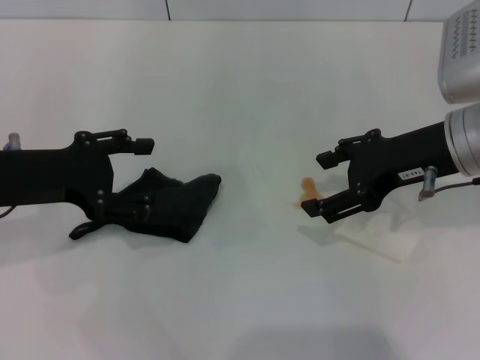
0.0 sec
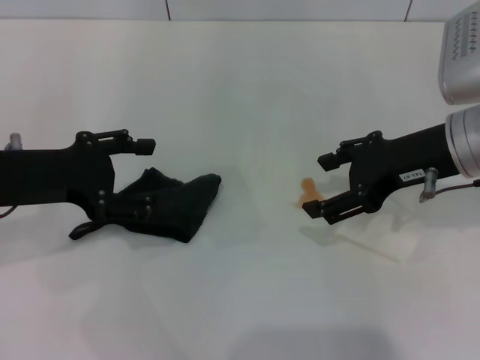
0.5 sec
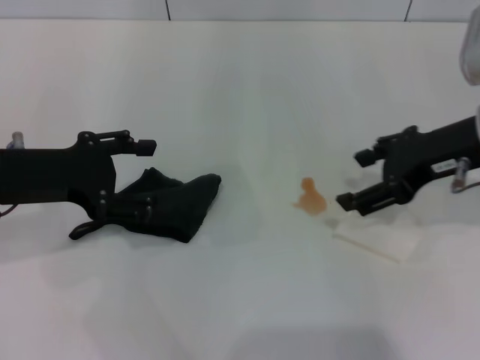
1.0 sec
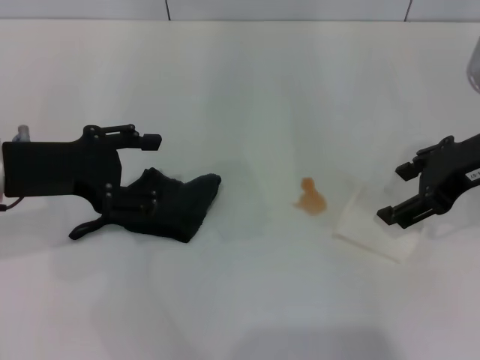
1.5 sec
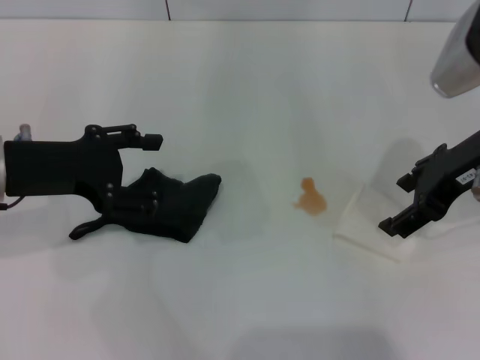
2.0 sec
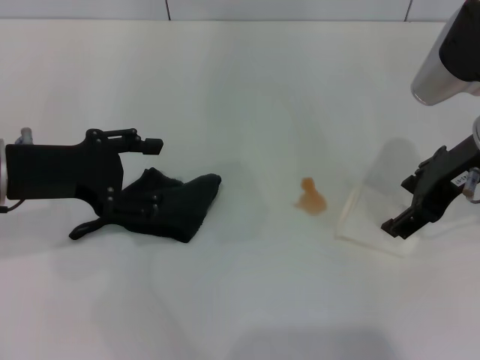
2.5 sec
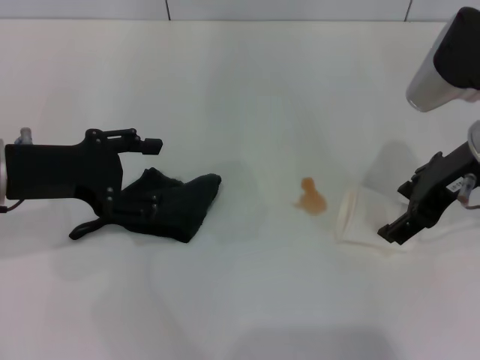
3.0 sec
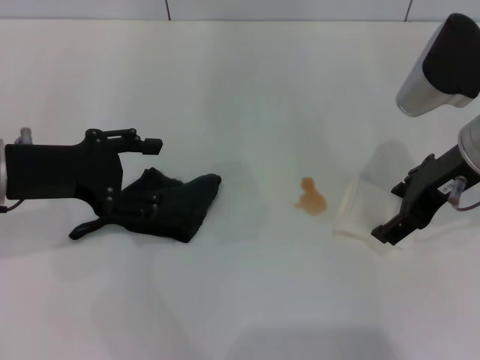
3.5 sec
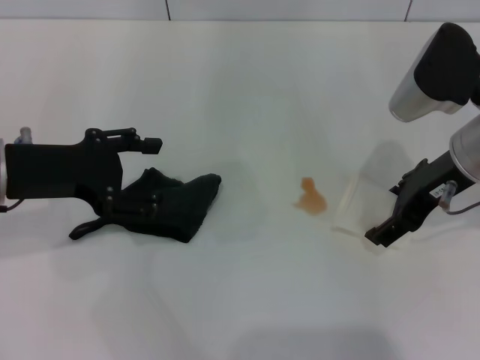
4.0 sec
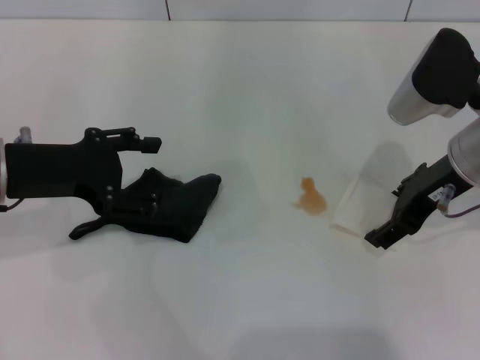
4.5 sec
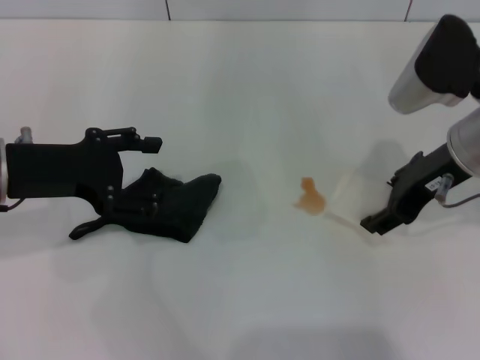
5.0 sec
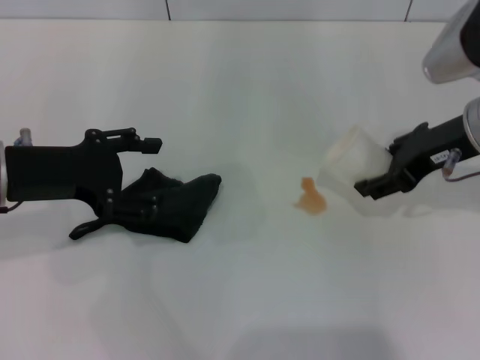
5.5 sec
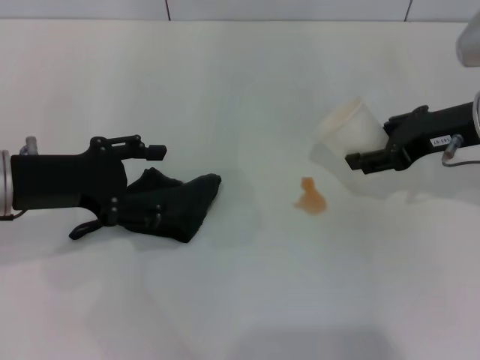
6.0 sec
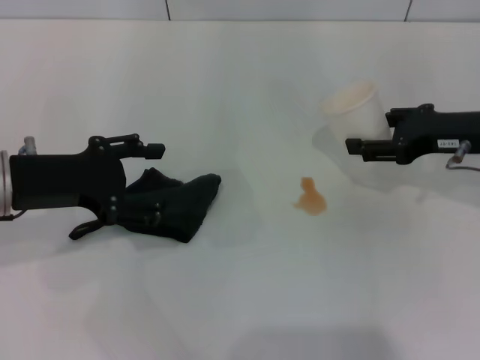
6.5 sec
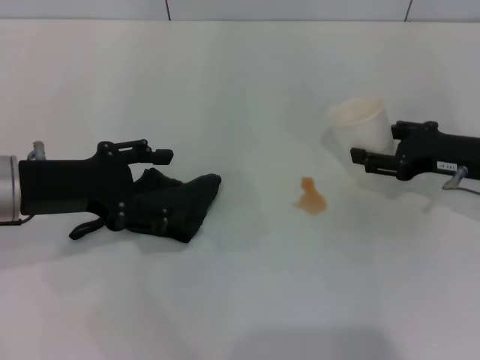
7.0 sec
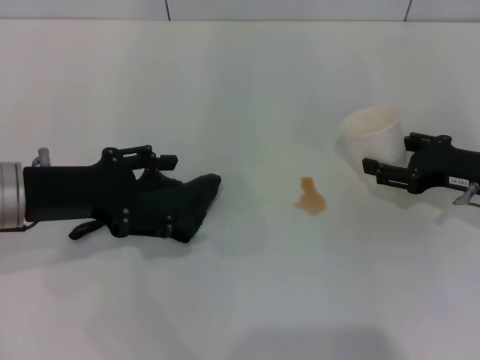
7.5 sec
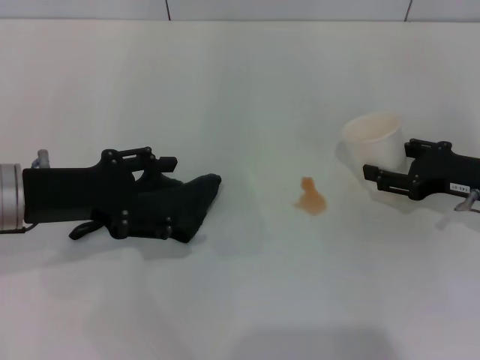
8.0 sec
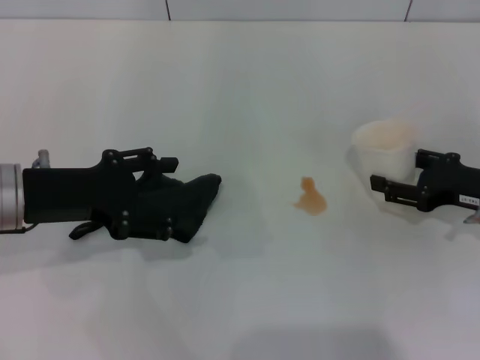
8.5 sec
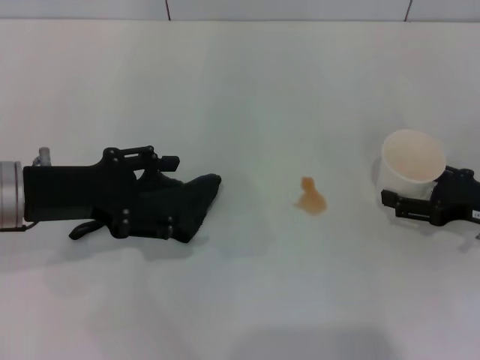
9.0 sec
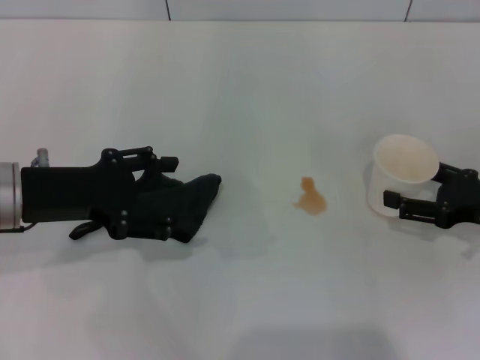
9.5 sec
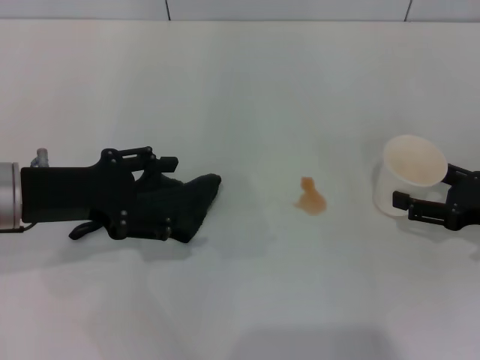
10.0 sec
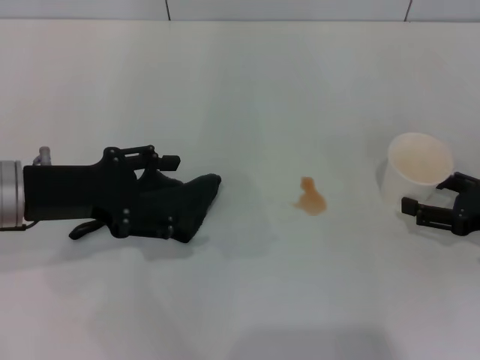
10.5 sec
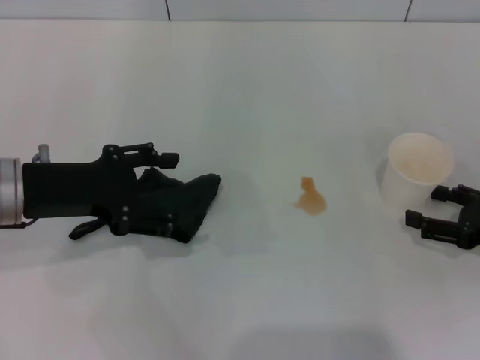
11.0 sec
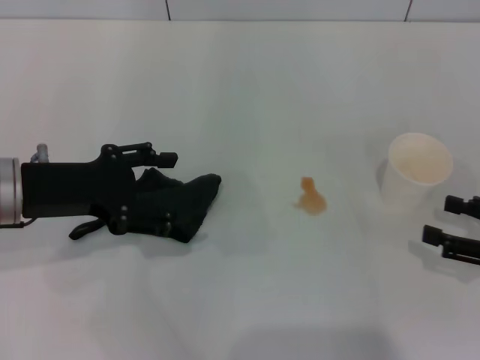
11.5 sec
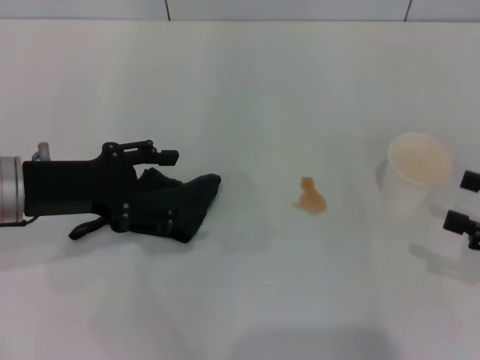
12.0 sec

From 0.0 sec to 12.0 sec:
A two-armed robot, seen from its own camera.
Step, from 0.0 sec to 4.5 sec: Grasp the paper cup with the right gripper.
Step, from 5.0 sec to 10.5 sec: Stand the paper cup upright with the right gripper.
From 2.0 sec to 4.0 sec: The grippers stay close to where they were, moving slightly.
From 4.0 sec to 6.0 sec: The right gripper closes its fingers.
From 6.0 sec to 8.0 sec: The right gripper shifts some 10 cm downward and to the right.
From 8.0 sec to 10.0 sec: The right gripper ends up approximately 5 cm from where it was, and opens.
From 10.0 sec to 12.0 sec: The right gripper moves backward, some 5 cm.

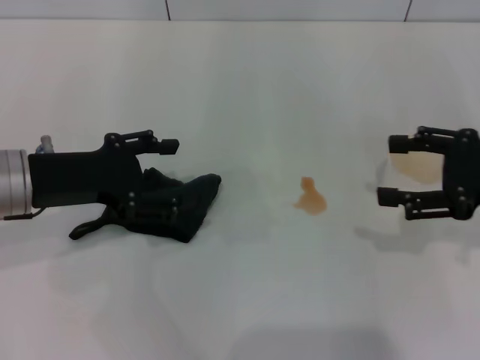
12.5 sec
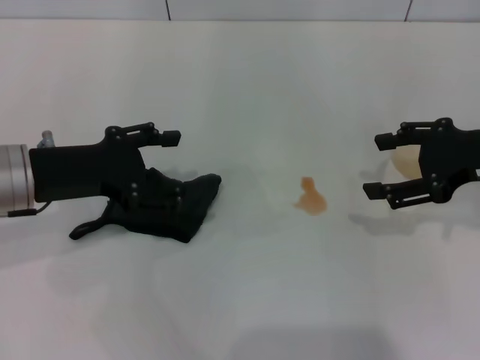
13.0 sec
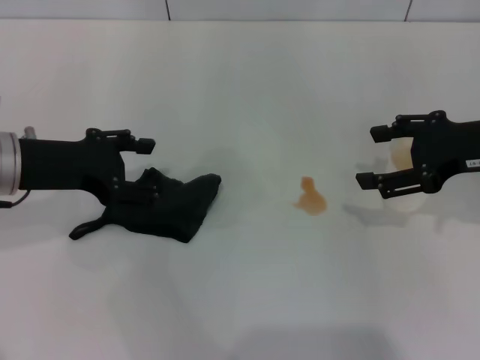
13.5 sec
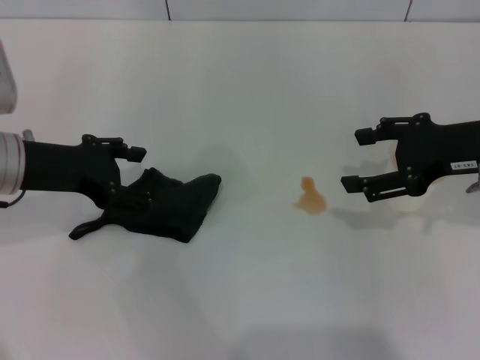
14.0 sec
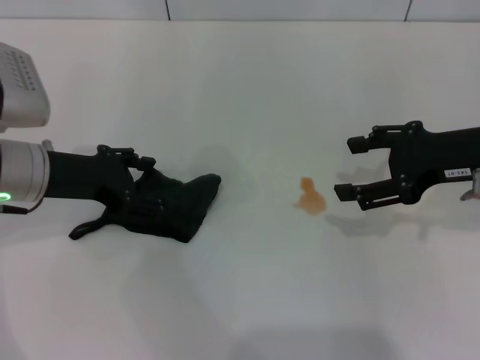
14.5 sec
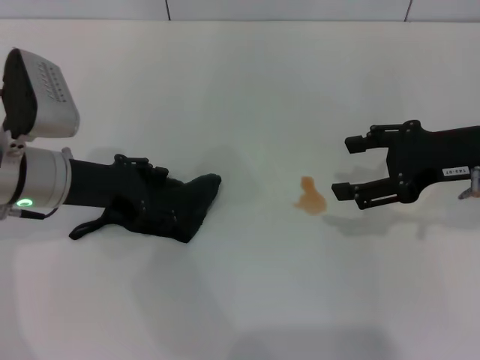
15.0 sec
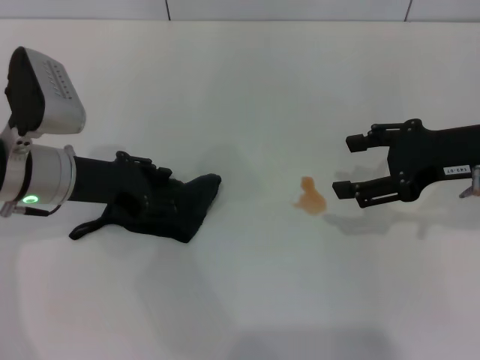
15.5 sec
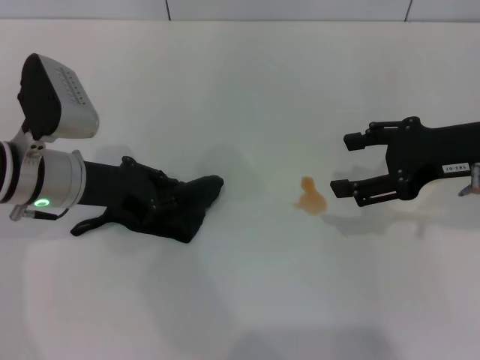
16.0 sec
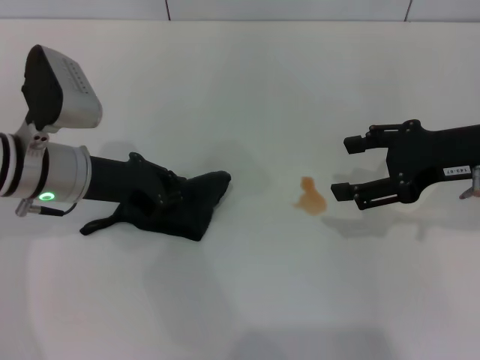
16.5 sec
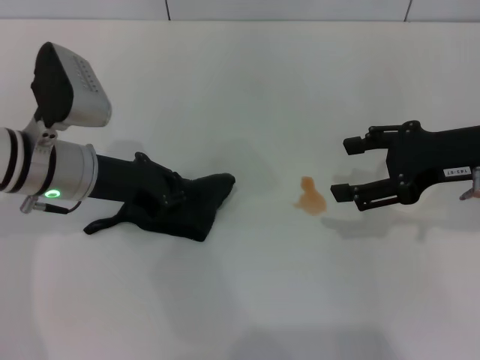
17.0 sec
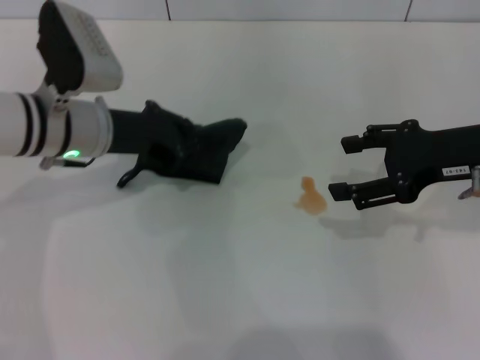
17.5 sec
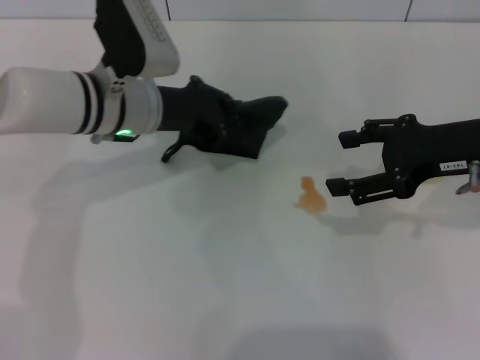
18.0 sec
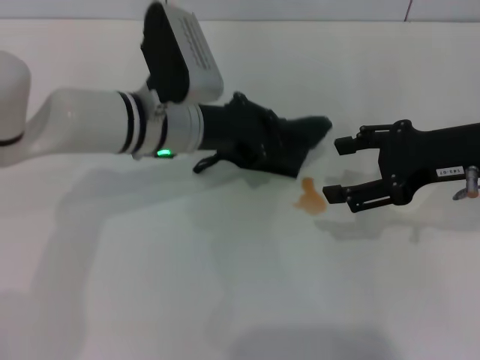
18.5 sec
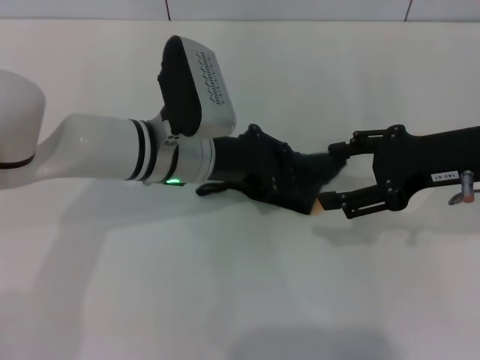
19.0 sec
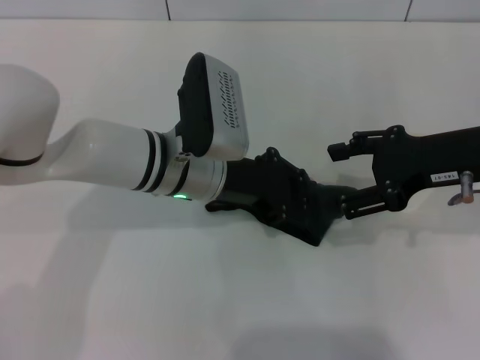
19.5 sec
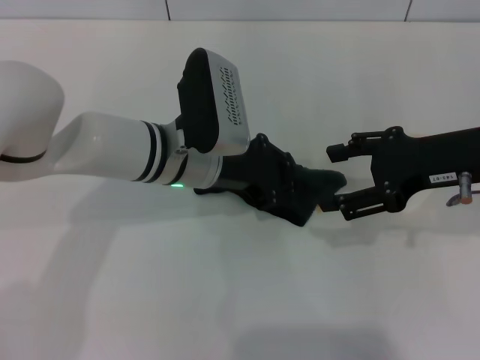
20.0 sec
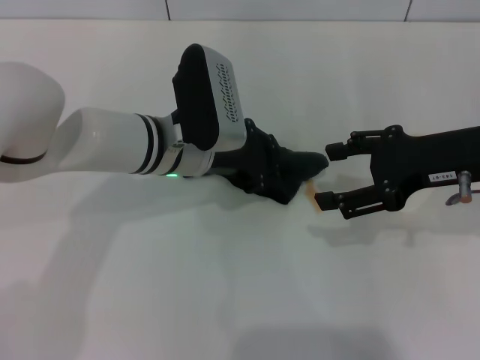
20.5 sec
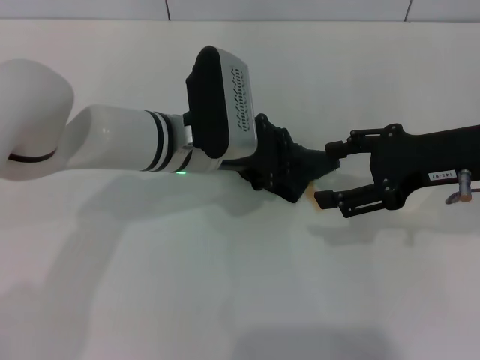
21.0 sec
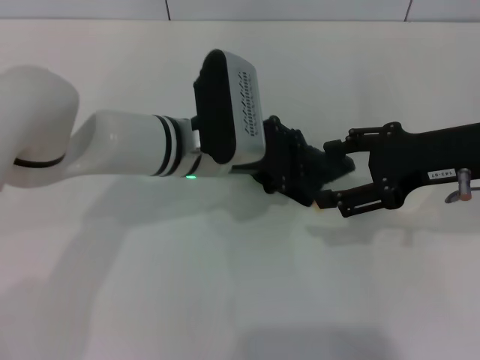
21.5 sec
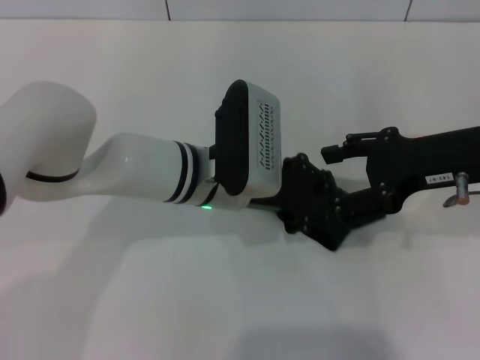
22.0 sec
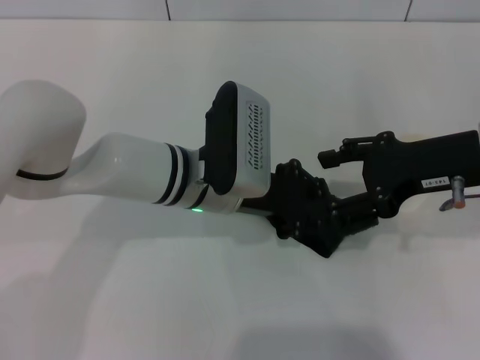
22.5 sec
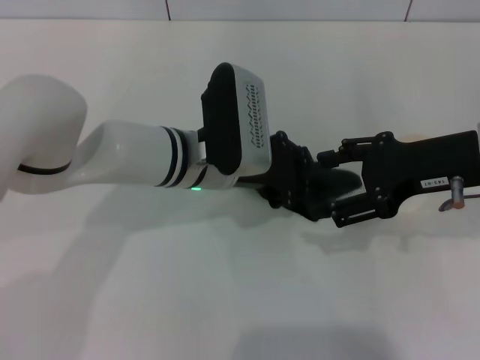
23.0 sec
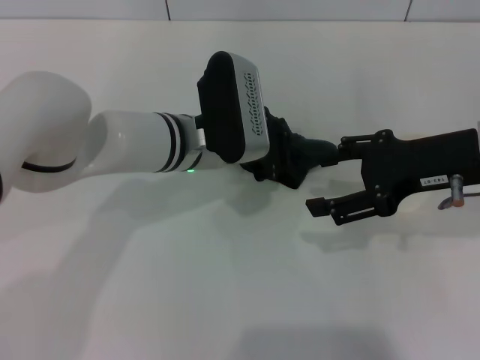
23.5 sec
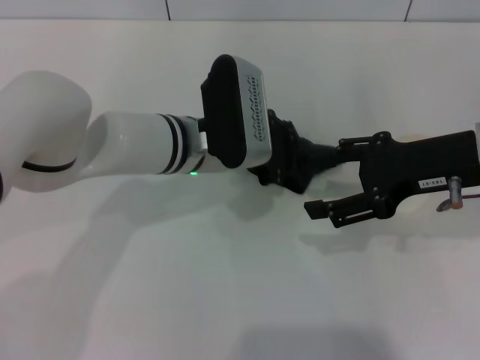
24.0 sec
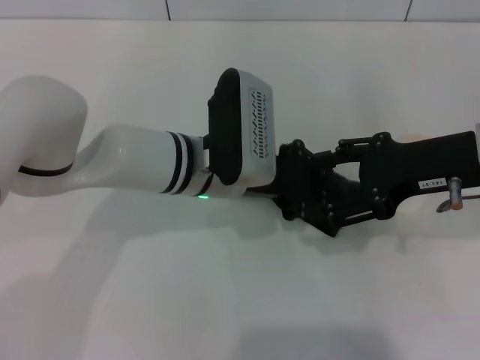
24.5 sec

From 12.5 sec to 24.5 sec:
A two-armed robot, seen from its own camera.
Step, from 12.5 sec to 17.0 sec: Grasp the rag with the left gripper.
From 12.5 sec to 14.5 sec: The right gripper moves approximately 5 cm.
From 14.5 sec to 16.5 sec: The left gripper closes its fingers.
From 16.5 sec to 18.5 sec: The left gripper travels to the right by approximately 10 cm.
From 18.5 sec to 20.5 sec: The grippers make only small movements.
From 20.5 sec to 24.5 sec: The grippers move only a little.

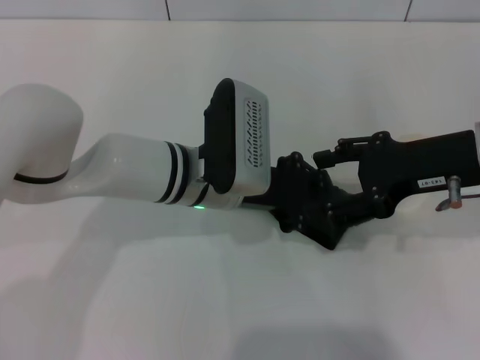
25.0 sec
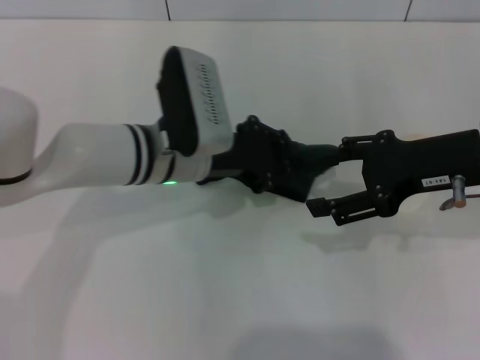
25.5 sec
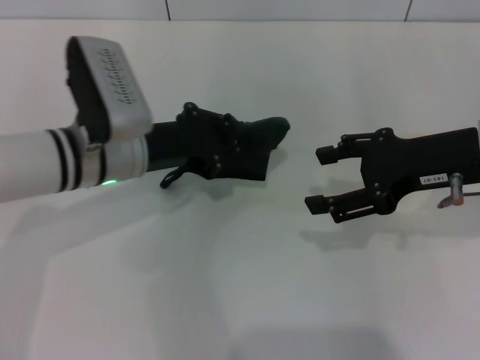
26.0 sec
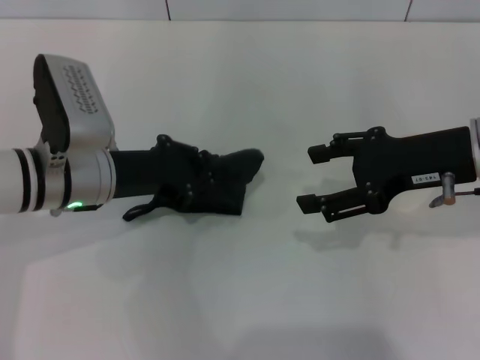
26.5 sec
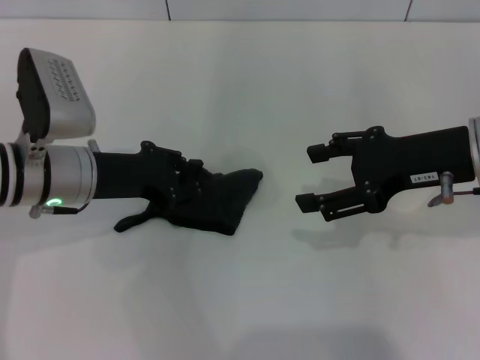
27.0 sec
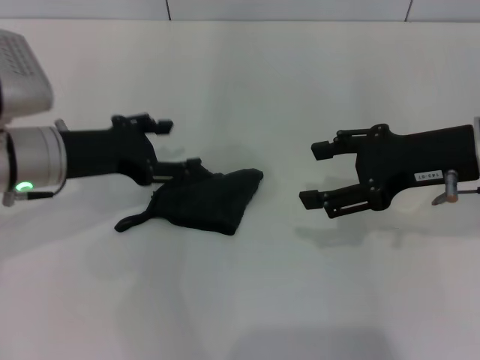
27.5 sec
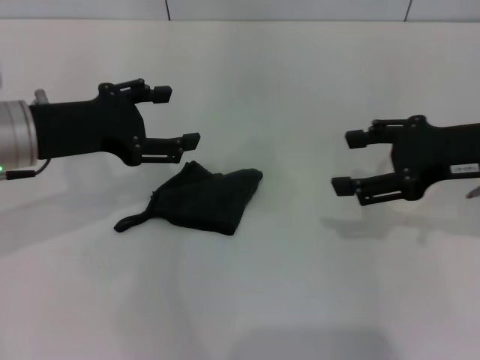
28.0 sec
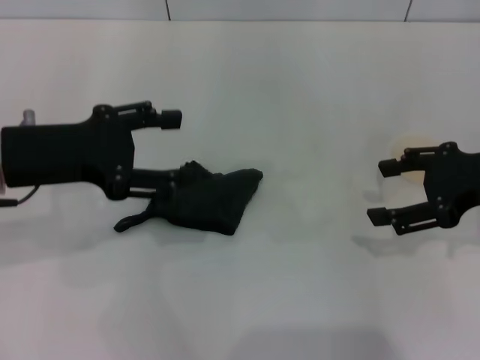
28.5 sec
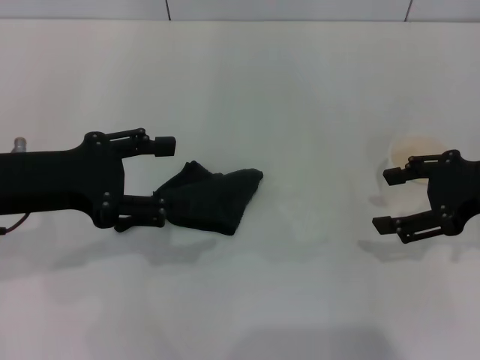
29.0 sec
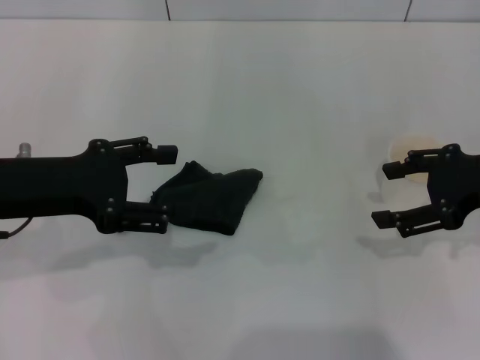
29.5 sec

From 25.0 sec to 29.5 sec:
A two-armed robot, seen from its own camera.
Step, from 26.5 sec to 27.5 sec: Place the rag on the table with the left gripper.
From 25.0 sec to 27.0 sec: The left gripper is displaced to the left by roughly 15 cm.
From 27.0 sec to 29.5 sec: The right gripper shifts some 5 cm to the right; the left gripper heads upward and backward, covering roughly 10 cm, and opens its fingers.
